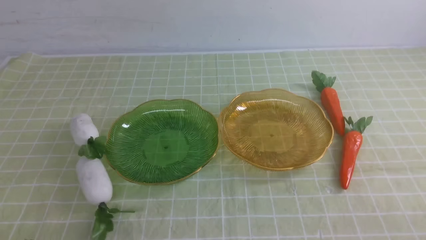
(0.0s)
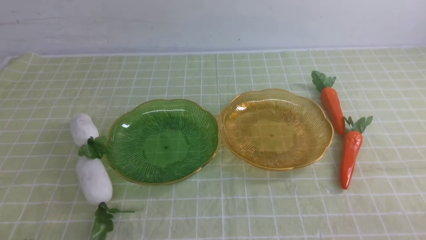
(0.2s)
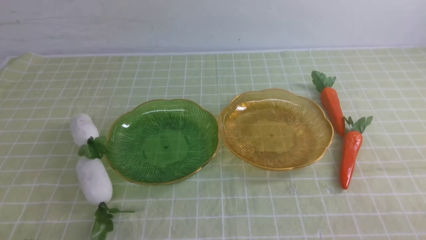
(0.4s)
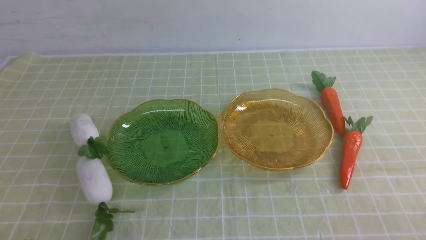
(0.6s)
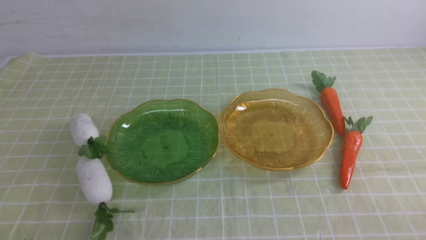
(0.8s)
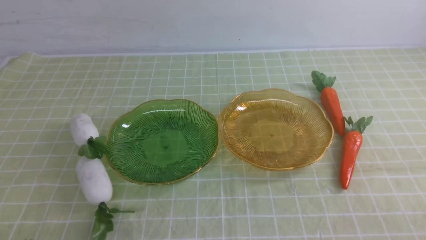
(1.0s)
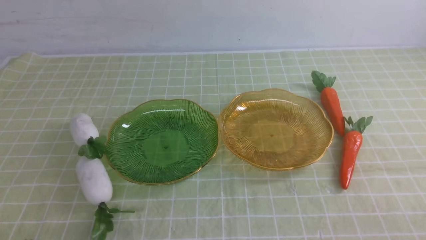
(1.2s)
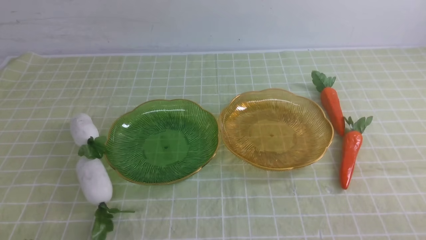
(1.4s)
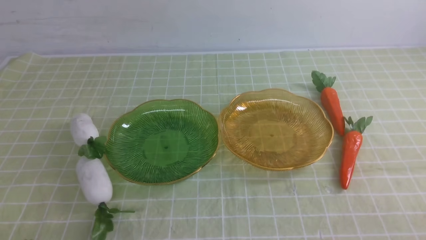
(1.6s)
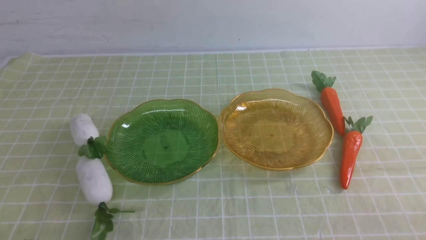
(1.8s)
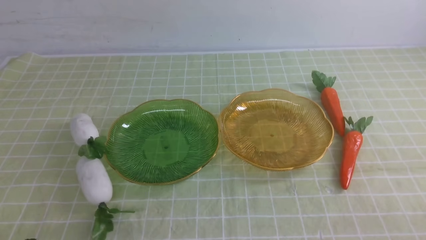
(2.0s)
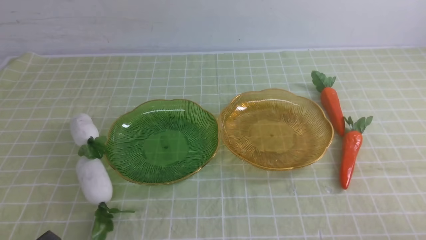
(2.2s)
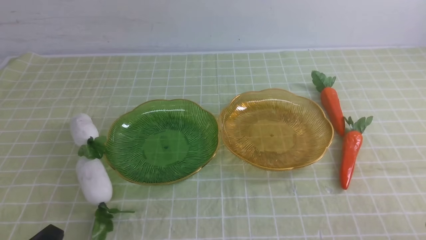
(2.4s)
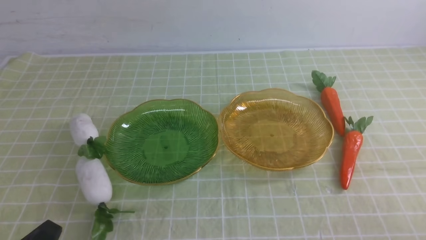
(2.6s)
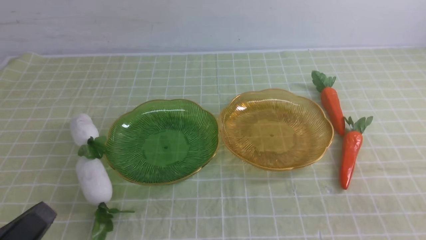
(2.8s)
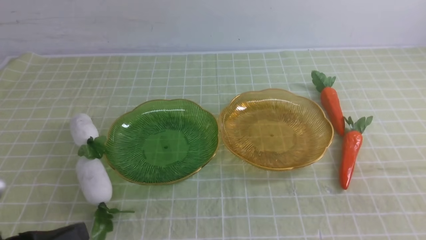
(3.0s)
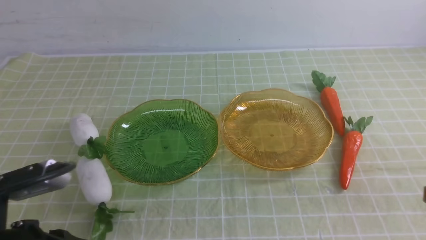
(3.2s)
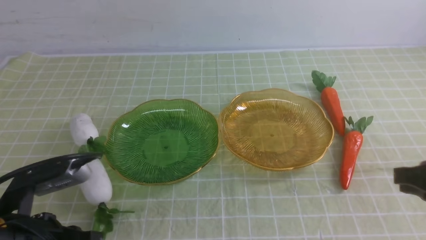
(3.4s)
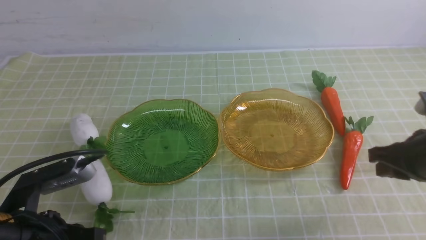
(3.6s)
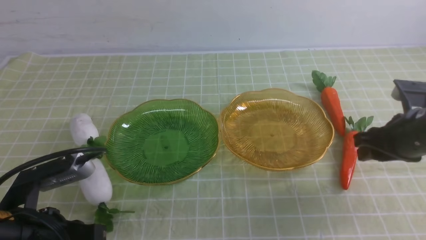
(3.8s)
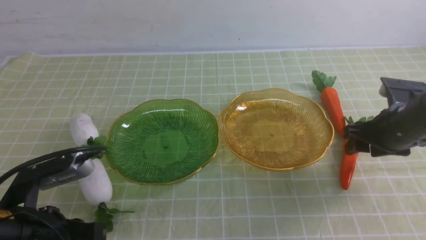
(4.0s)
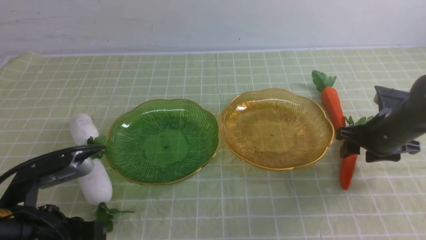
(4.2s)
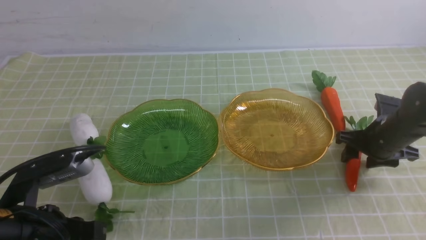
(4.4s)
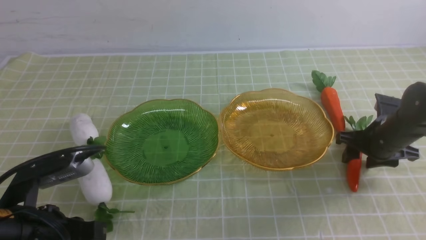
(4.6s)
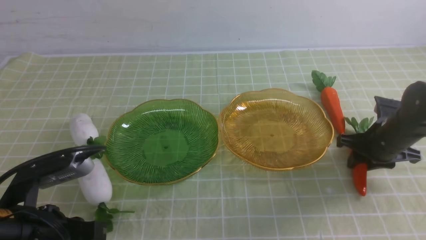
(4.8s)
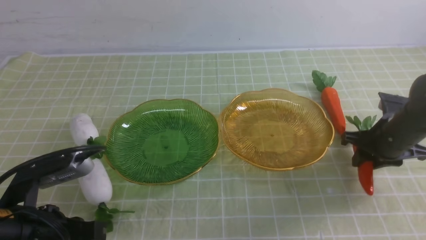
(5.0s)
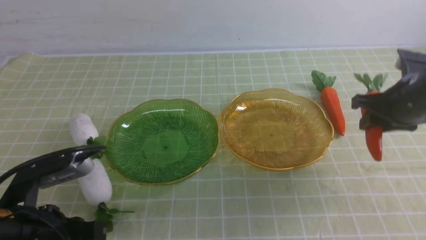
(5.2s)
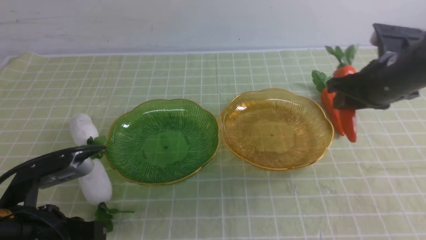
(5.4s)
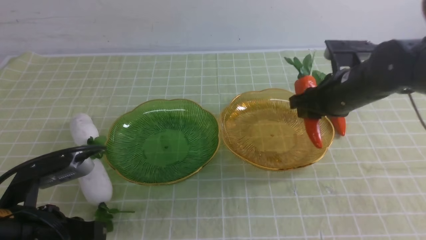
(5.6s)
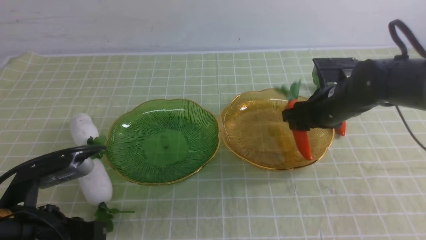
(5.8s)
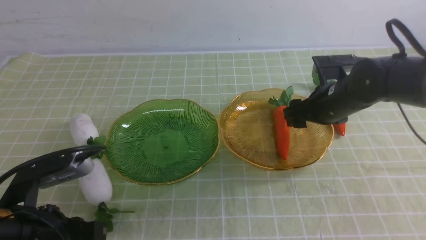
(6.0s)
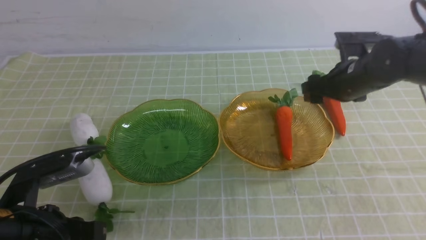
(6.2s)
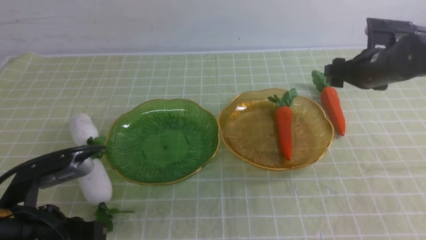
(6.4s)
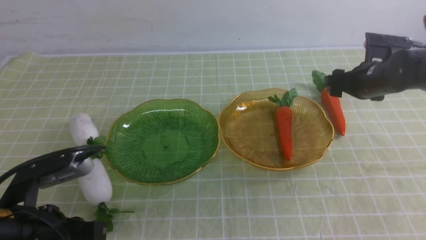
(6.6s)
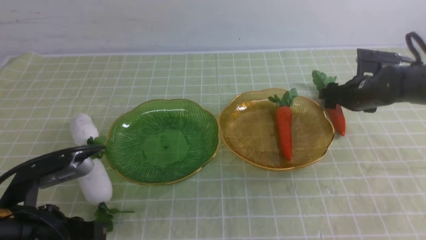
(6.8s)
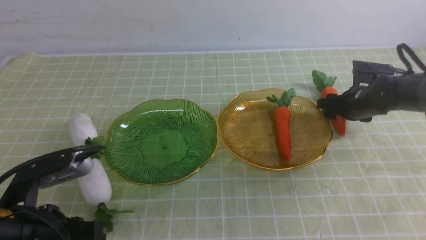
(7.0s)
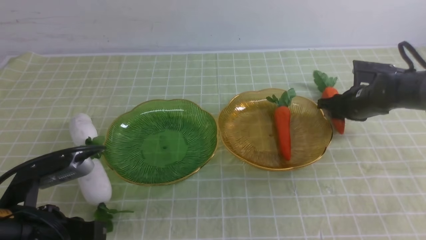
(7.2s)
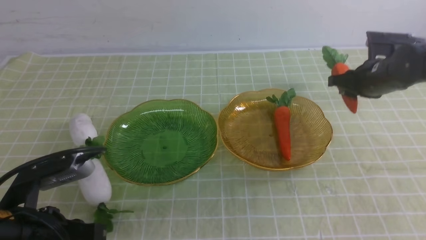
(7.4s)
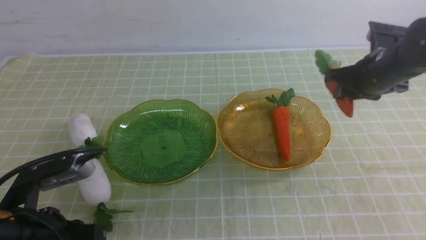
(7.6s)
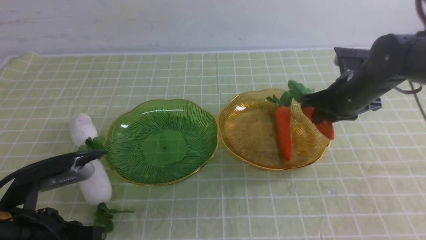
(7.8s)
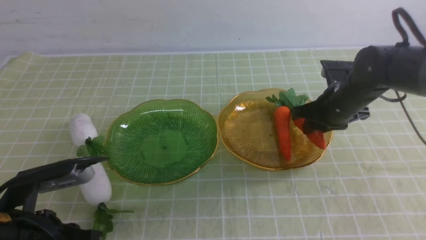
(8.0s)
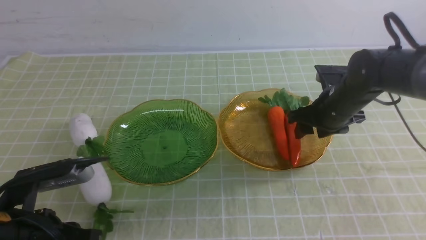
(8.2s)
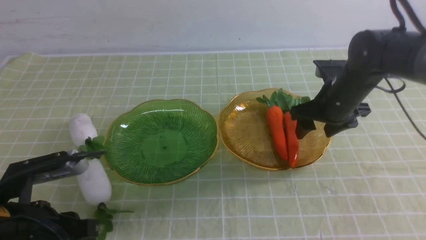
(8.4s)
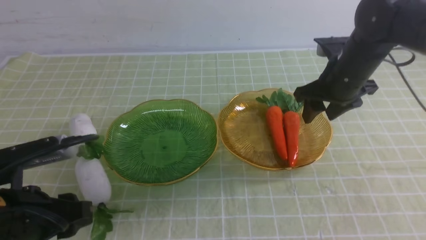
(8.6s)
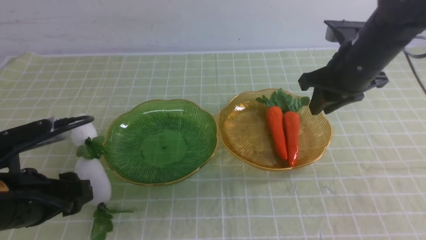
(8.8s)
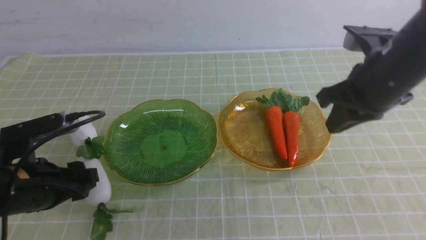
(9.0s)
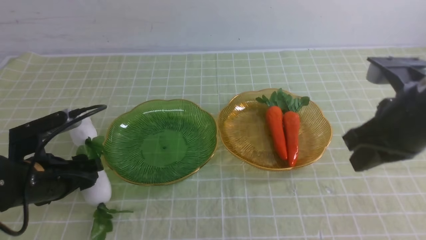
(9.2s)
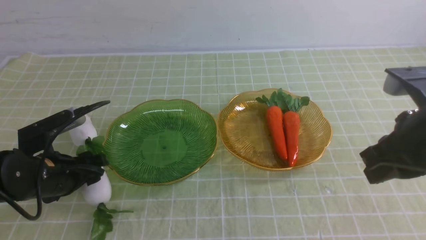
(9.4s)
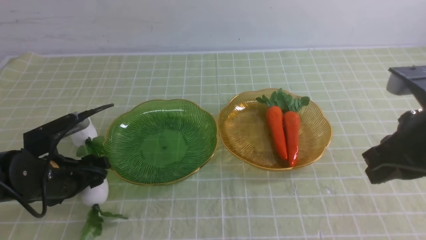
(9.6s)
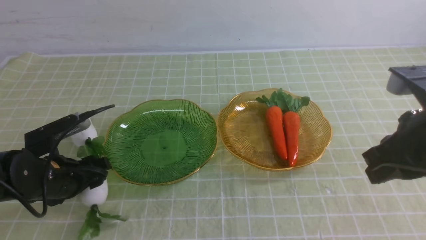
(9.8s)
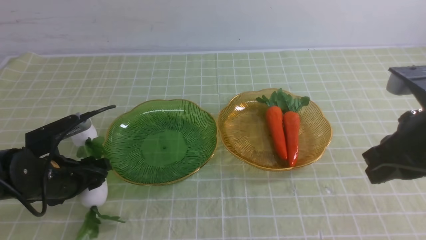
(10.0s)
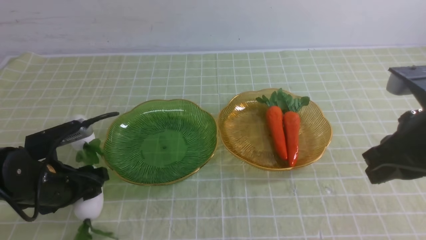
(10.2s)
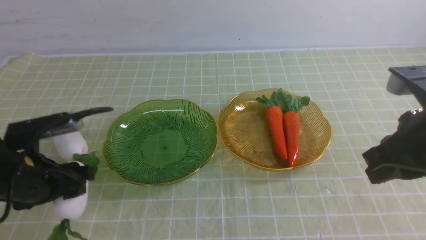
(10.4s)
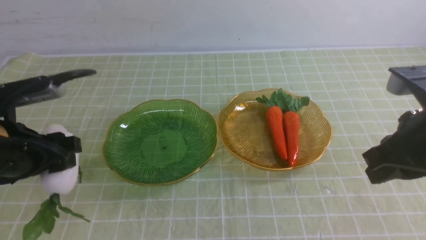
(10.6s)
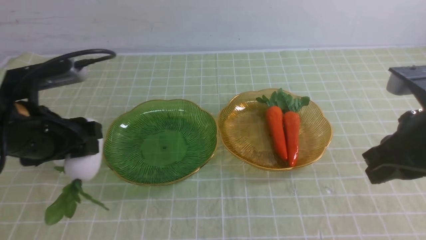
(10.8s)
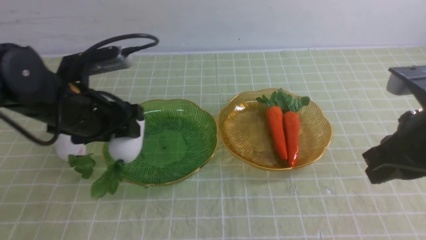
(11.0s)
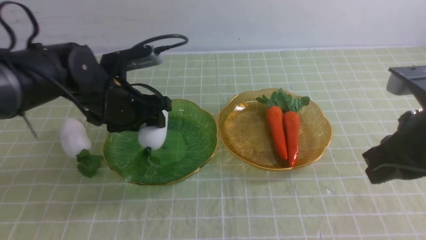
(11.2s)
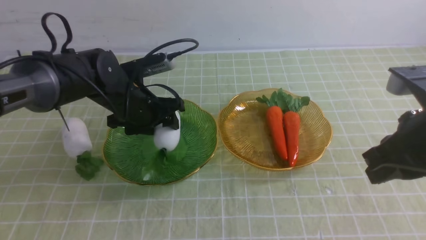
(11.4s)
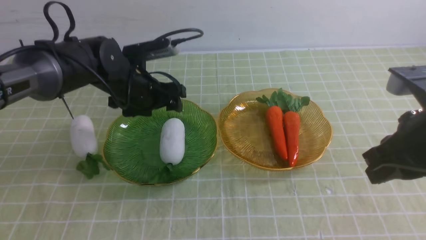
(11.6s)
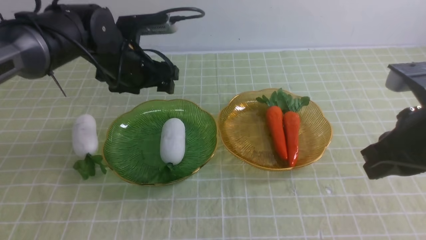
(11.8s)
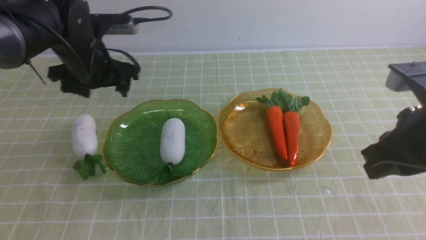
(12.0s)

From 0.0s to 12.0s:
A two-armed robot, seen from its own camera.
Step, from 0.0s to 8.4s: use the right arm to grab a carrot and put it into the right plate.
From 0.0s to 1.6s: Neither gripper changes place.
From 1.6s to 3.0s: The left gripper goes roughly 10 cm upward.
From 3.0s to 4.4s: The right gripper goes some 30 cm forward and downward, and opens; the left gripper is displaced forward by some 5 cm.
From 4.4s to 6.0s: The right gripper travels to the left and upward by about 10 cm.
From 6.0s to 7.6s: The right gripper reaches approximately 5 cm downward, then returns, and closes its fingers.
From 7.6s to 9.0s: The right gripper shifts approximately 15 cm backward and upward, and opens, then closes again; the left gripper travels forward by approximately 5 cm, and opens its fingers.
From 9.0s to 10.4s: The right gripper is displaced backward by roughly 10 cm.
From 10.4s to 12.0s: The left gripper travels forward by about 15 cm.

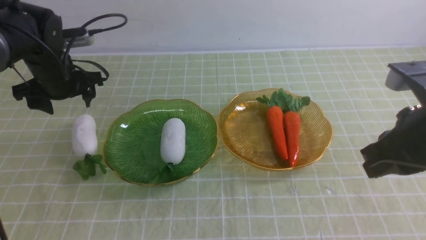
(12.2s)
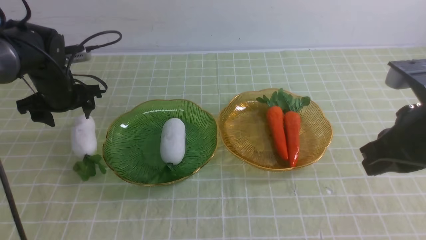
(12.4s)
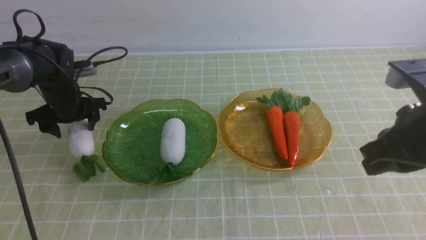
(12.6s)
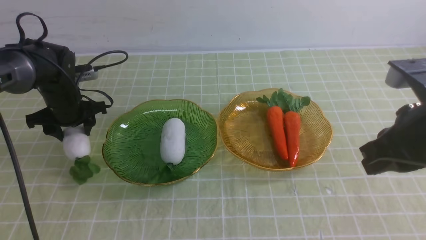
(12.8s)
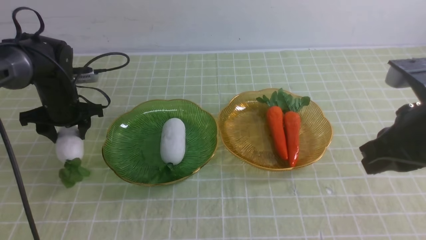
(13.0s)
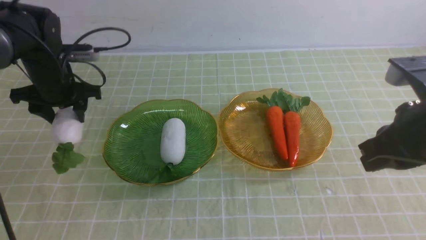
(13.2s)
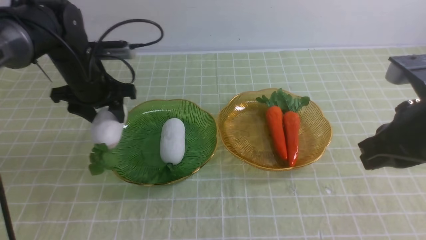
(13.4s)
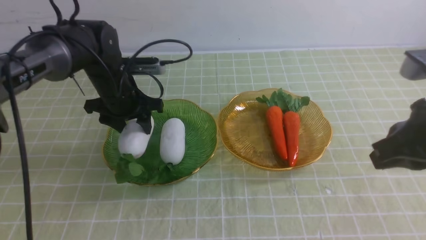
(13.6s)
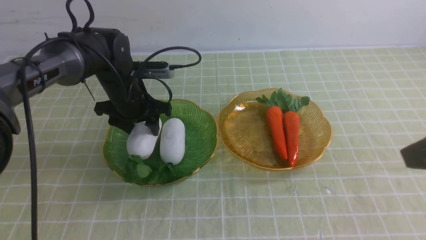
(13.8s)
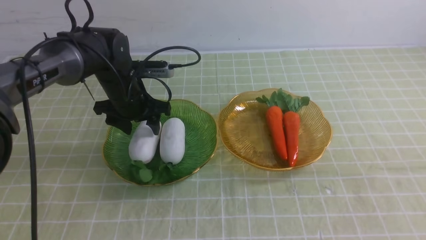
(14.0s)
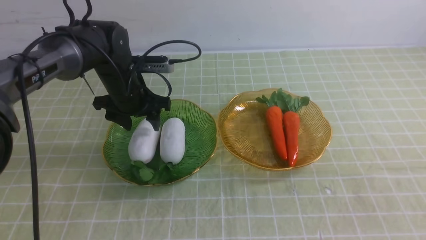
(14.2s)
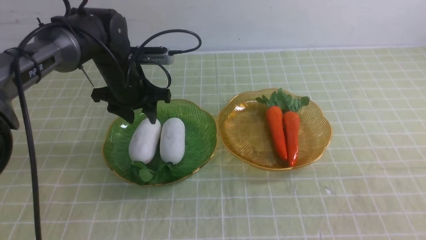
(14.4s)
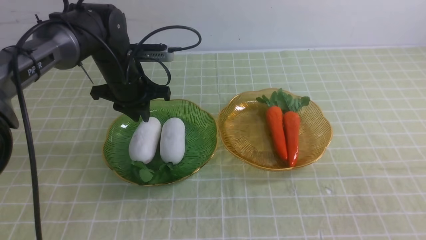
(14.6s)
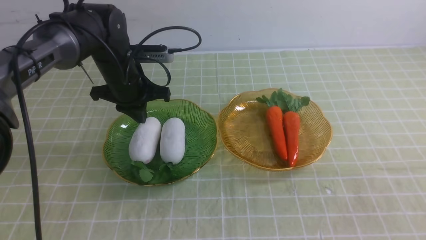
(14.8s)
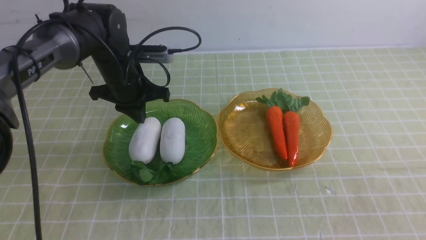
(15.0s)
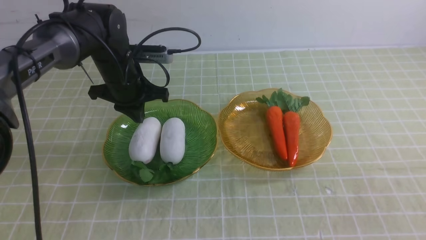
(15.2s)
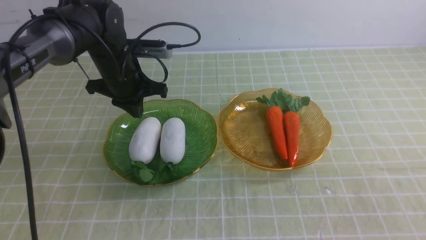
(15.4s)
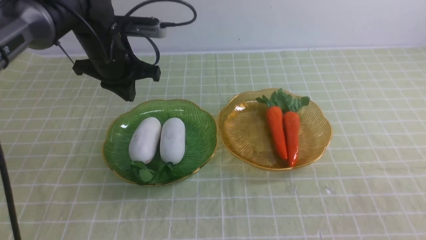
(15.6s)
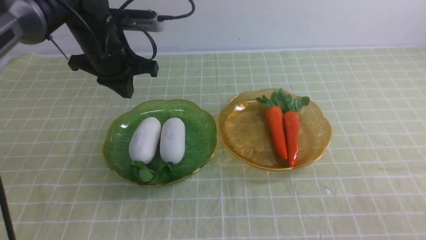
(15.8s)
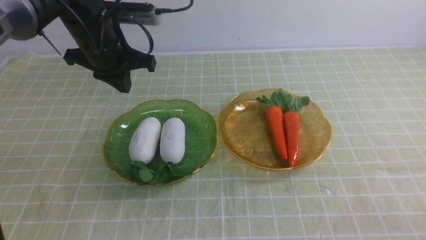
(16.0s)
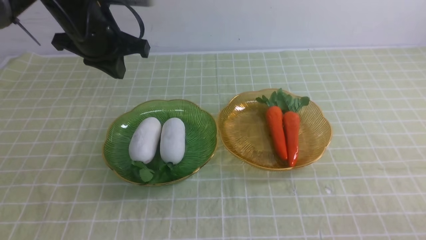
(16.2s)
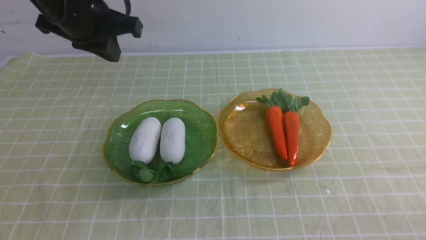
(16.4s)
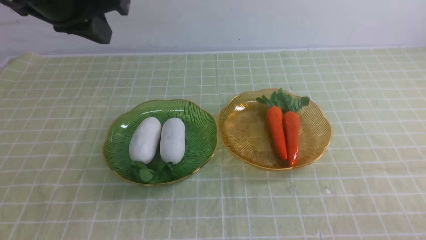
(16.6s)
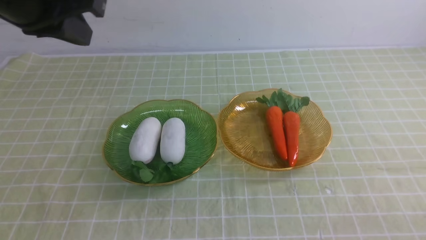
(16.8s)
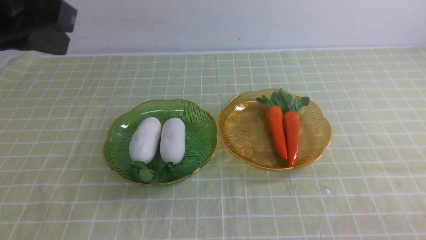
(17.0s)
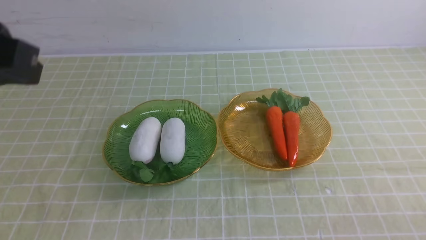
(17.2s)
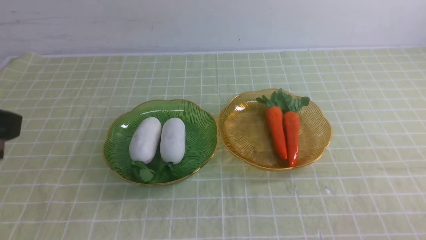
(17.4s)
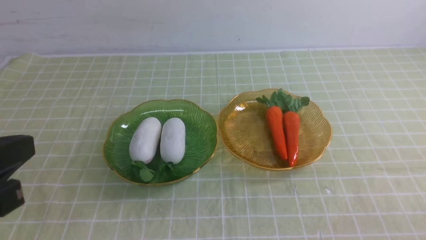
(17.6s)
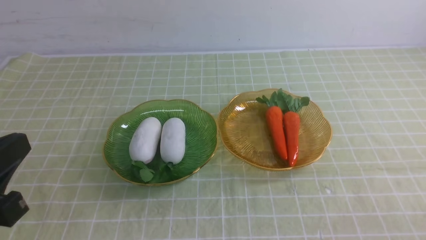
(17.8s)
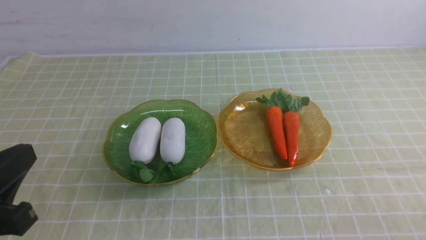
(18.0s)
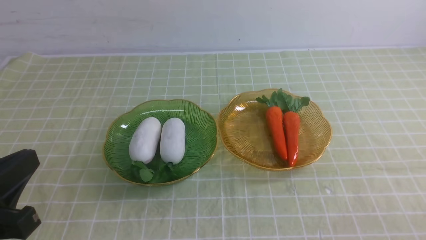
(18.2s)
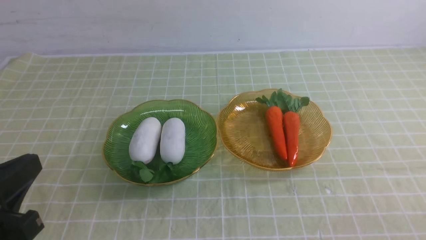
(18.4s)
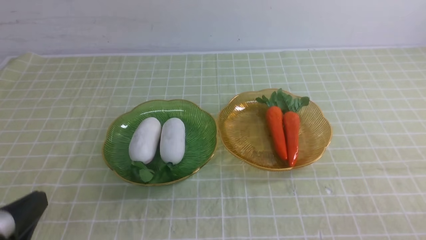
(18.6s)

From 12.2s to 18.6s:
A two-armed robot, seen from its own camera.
Step, from 12.2s to 14.4s: use the left arm to grab a radish and put it into the left plate.
From 12.2s to 13.8s: The left gripper travels to the right by some 10 cm. The right gripper shifts some 10 cm backward and upward.
From 13.8s to 15.4s: The right gripper heads downward and backward, covering approximately 15 cm; the left gripper is displaced upward by roughly 5 cm, and closes its fingers.
From 15.4s to 17.0s: The right gripper shifts roughly 10 cm downward, while the left gripper goes roughly 30 cm backward and upward.
From 17.0s to 18.6s: The left gripper goes roughly 25 cm downward and backward.
